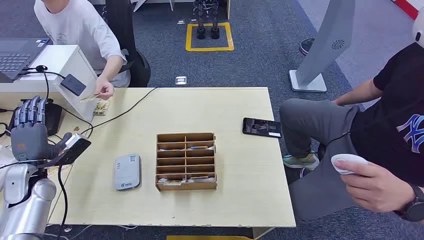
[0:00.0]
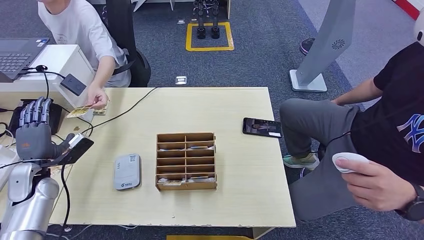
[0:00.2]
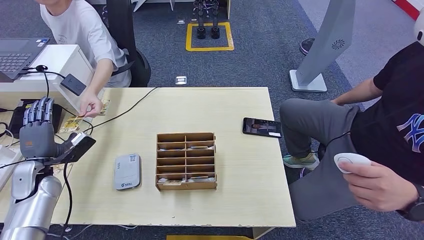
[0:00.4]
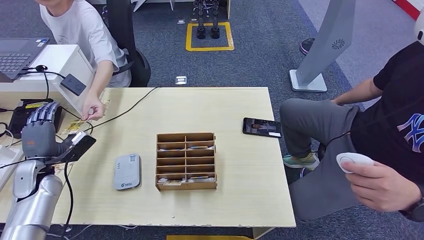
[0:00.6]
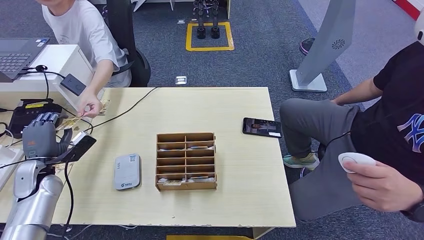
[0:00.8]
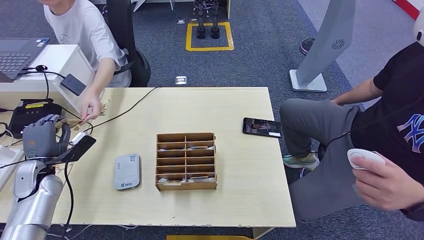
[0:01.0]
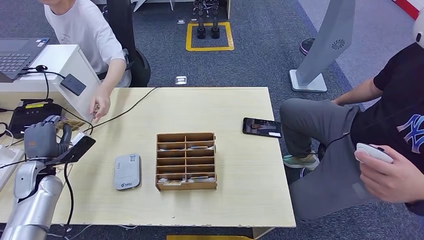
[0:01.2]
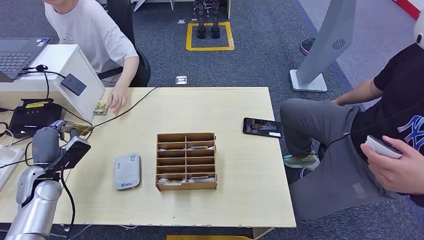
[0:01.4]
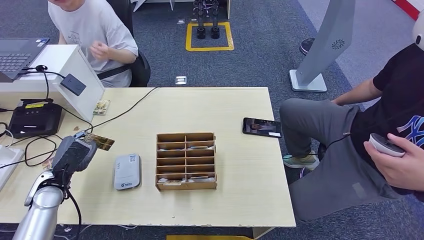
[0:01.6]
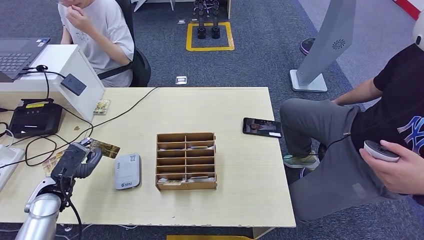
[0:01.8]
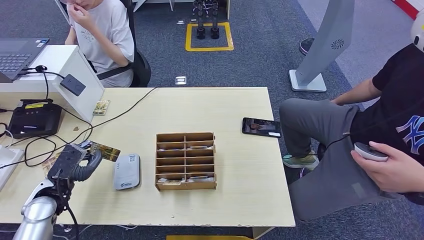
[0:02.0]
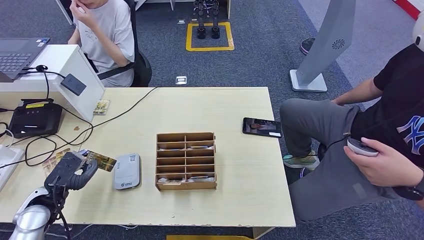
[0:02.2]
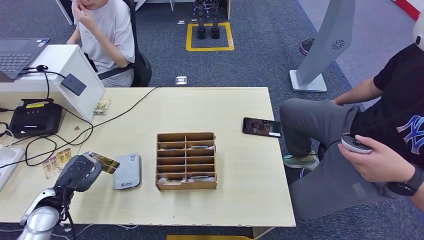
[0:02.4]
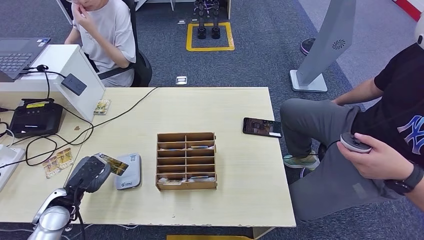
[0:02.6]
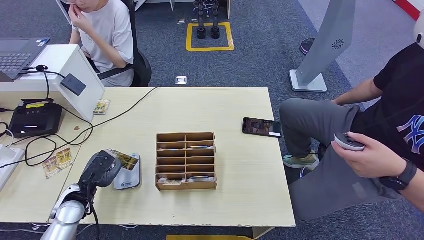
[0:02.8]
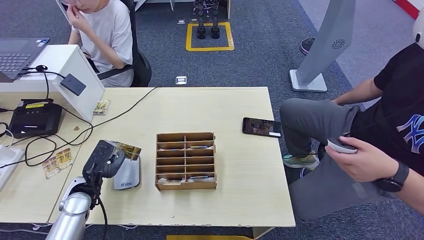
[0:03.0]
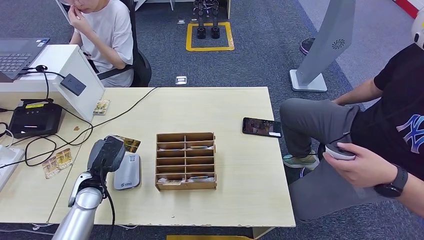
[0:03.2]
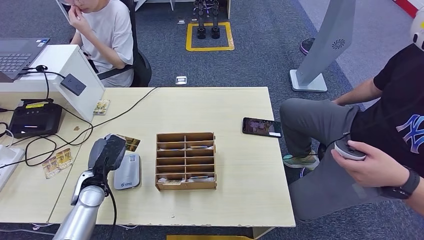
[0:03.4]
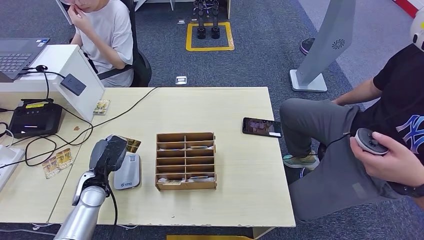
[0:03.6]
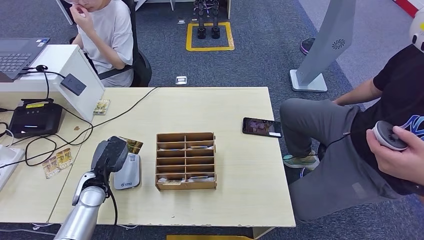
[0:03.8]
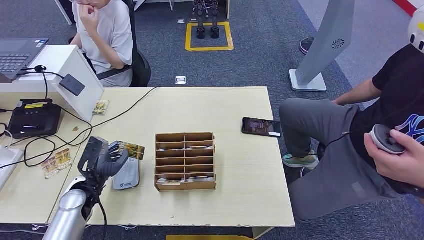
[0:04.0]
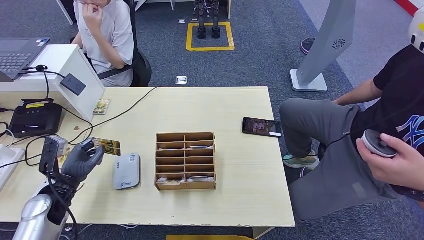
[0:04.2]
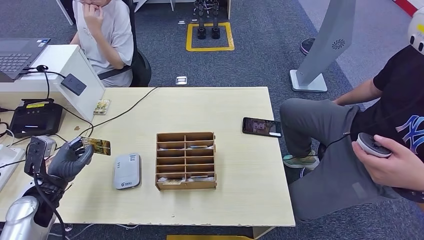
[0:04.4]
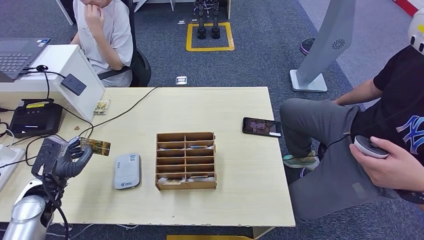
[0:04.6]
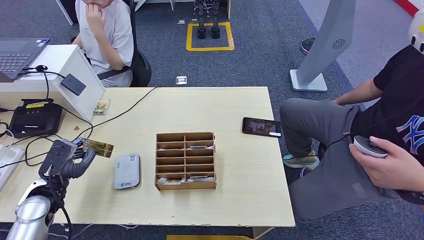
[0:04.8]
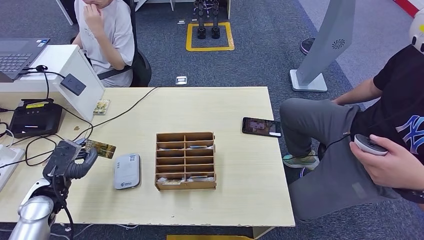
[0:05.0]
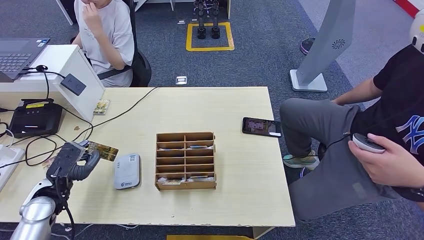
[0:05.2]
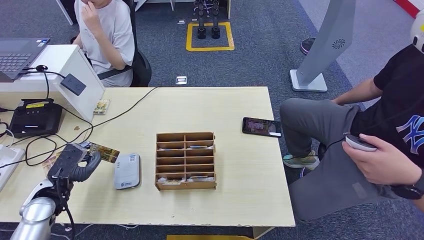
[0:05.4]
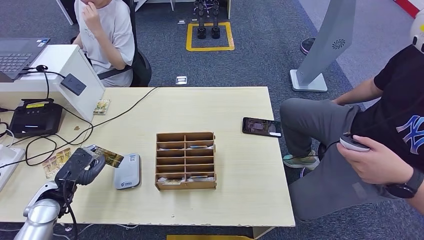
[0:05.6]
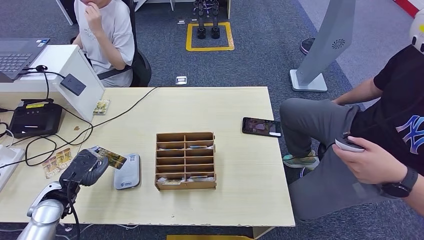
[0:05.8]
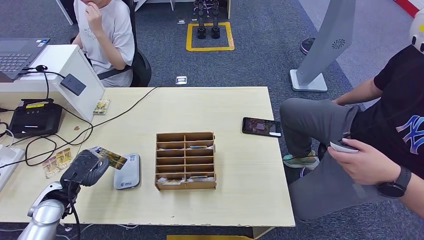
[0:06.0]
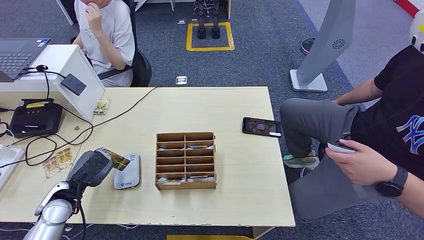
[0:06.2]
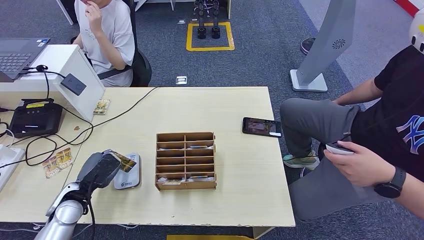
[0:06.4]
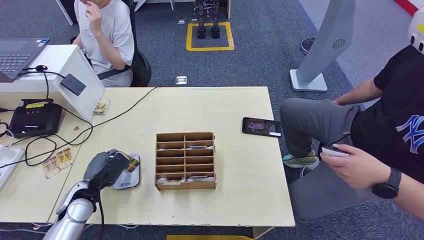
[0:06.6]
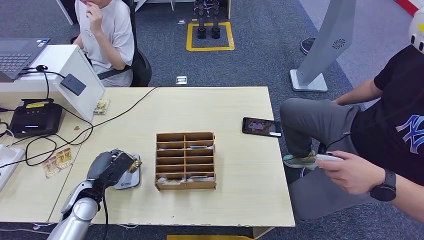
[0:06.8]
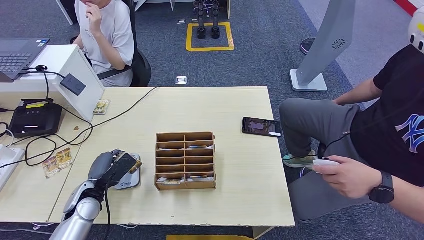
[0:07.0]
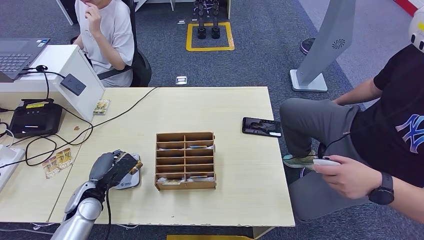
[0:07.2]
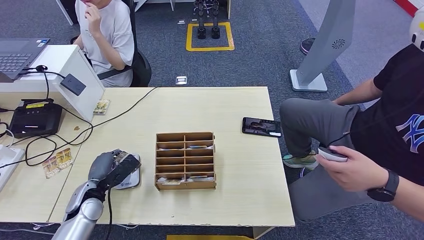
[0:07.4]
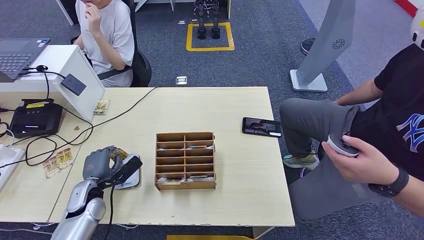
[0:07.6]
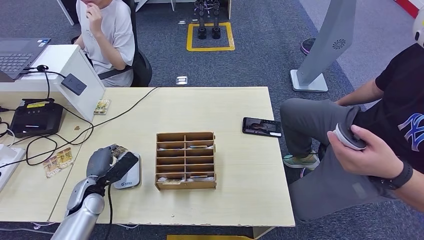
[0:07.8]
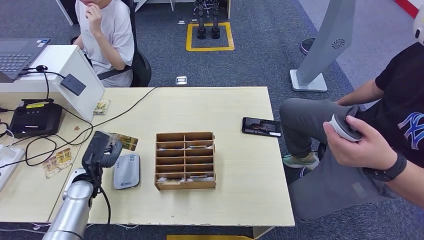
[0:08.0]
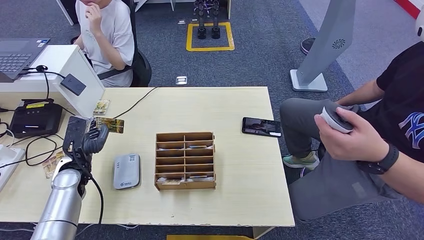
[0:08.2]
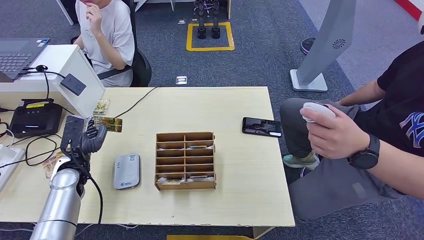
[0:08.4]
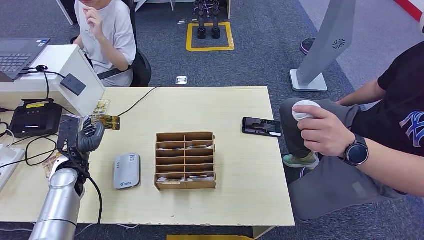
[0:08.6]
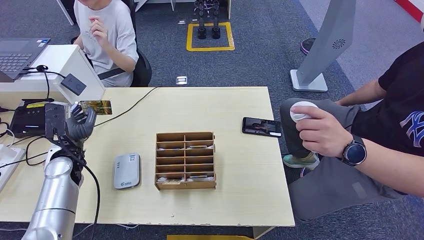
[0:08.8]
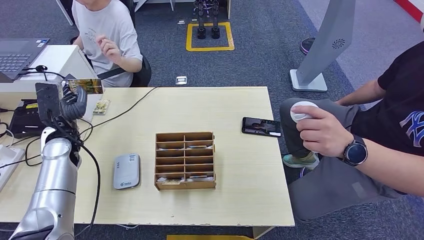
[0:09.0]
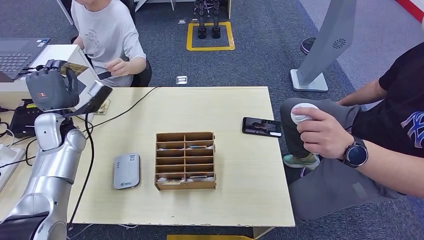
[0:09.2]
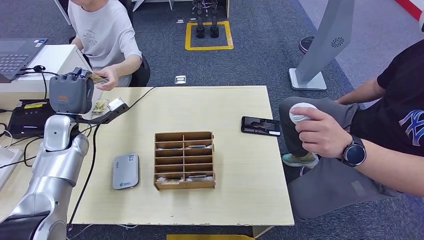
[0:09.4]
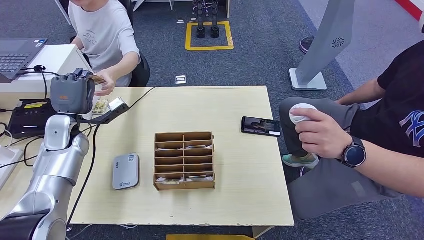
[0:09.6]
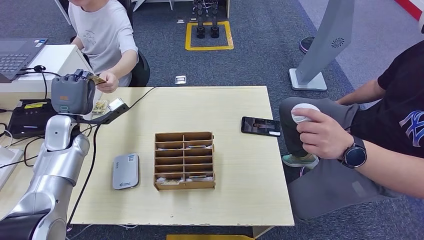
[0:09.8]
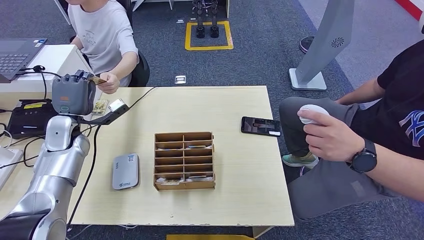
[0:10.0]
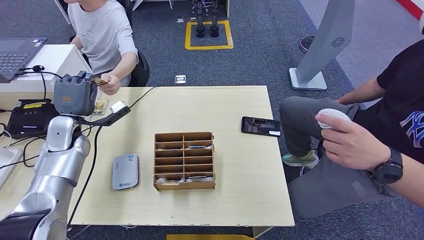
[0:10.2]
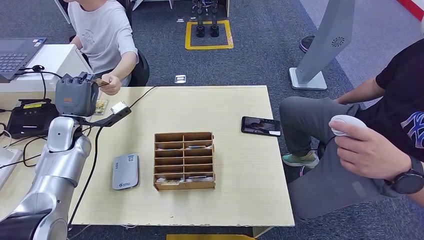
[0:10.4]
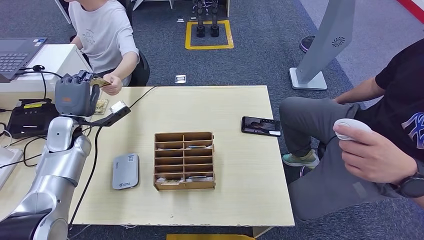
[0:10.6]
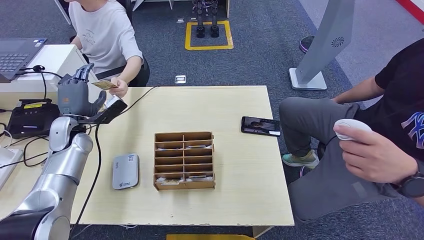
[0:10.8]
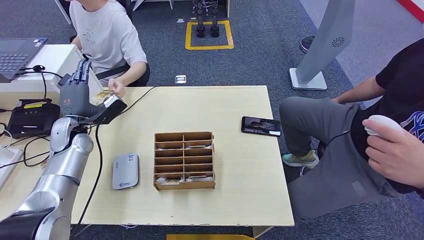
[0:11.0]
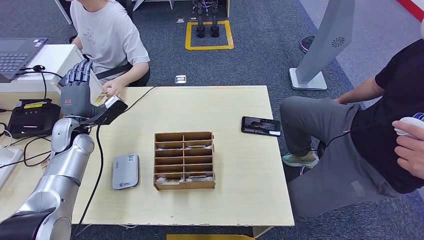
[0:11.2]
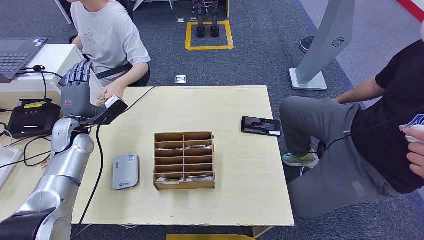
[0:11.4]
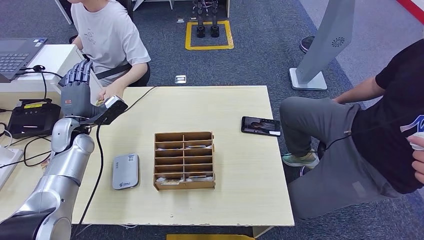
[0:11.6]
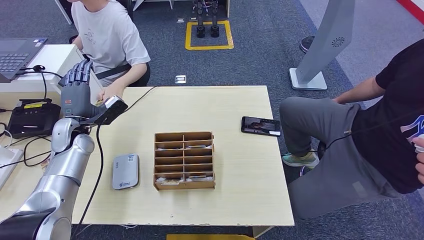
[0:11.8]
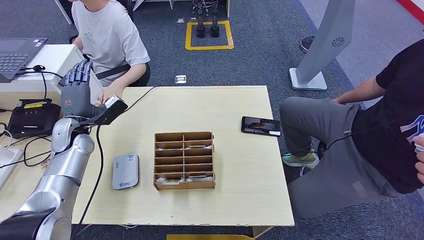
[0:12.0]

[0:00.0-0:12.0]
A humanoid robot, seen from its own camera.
Step, 0:00.0 to 0:01.2: Take the ID card from the person's hand.
Step, 0:01.4 to 0:06.2: Place the ID card on the card reader.
Step, 0:06.4 to 0:10.8: Hand the ID card to the person.
0:01.6 to 0:03.0: The left hand heads to the right, covering approximately 10 cm.
0:03.0 to 0:04.4: The left hand travels to the left by some 10 cm.
0:06.0 to 0:07.6: The left hand heads to the right, covering about 5 cm.
0:07.6 to 0:09.0: The left hand heads upward and forward, covering some 15 cm.

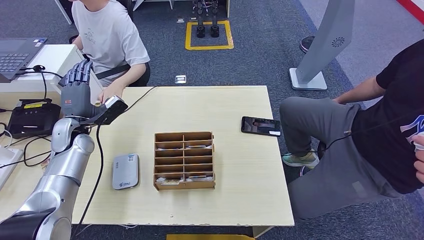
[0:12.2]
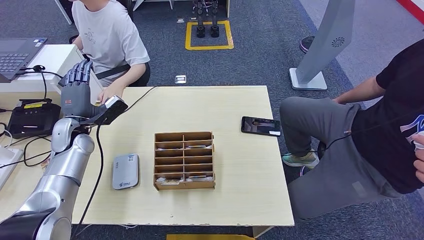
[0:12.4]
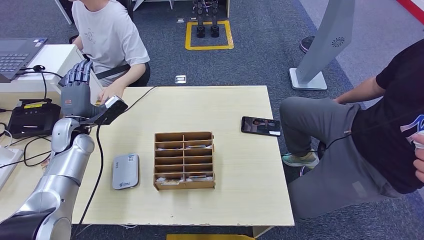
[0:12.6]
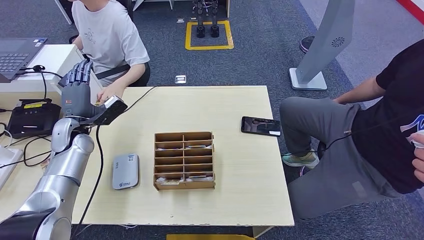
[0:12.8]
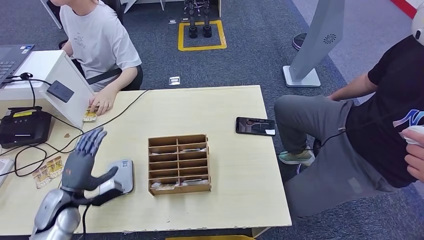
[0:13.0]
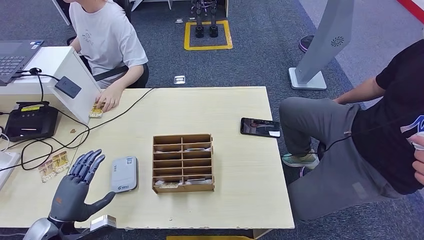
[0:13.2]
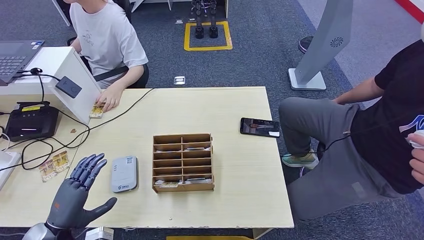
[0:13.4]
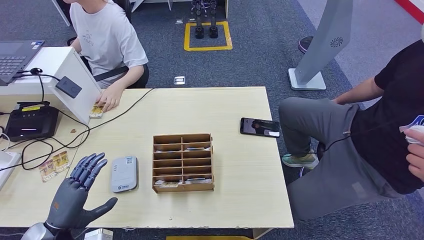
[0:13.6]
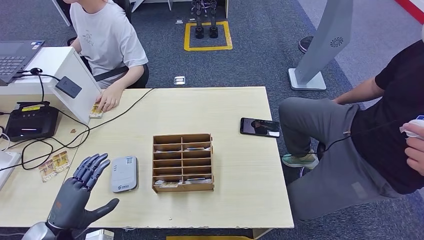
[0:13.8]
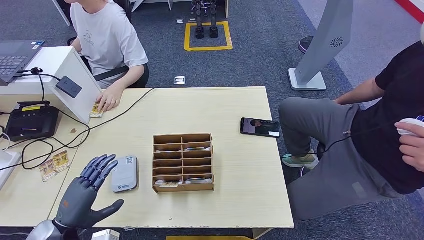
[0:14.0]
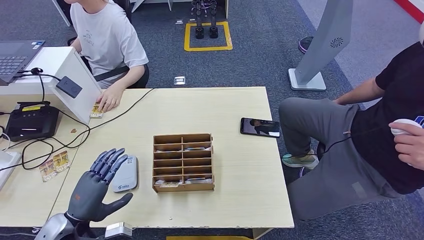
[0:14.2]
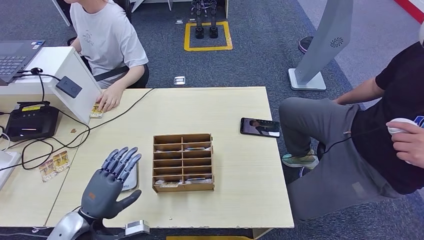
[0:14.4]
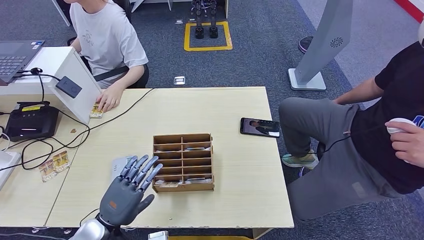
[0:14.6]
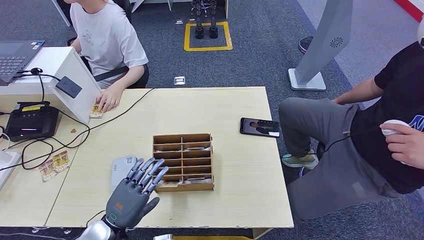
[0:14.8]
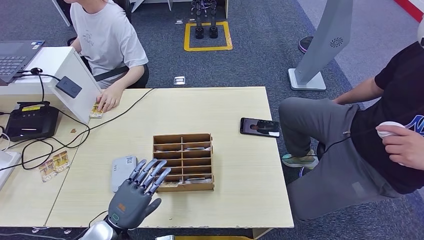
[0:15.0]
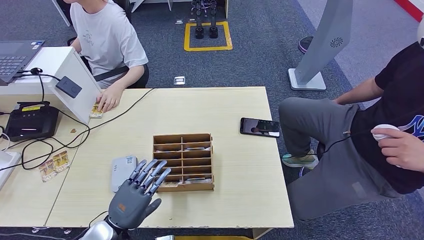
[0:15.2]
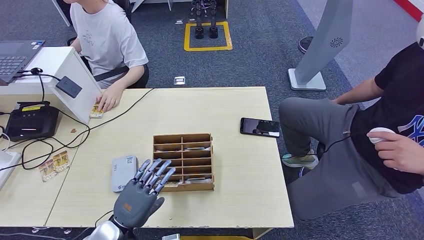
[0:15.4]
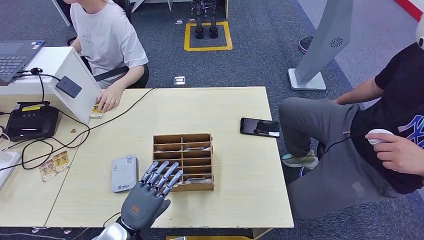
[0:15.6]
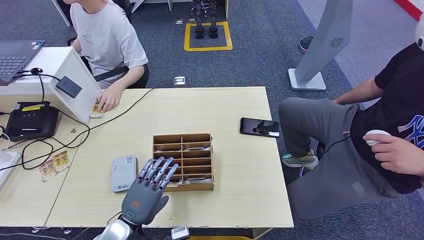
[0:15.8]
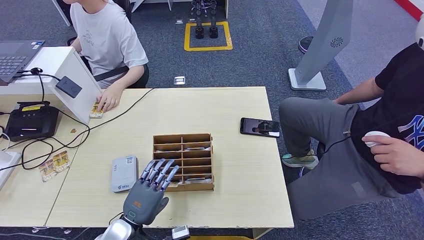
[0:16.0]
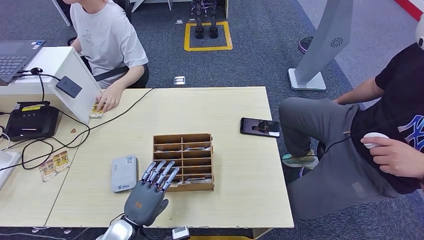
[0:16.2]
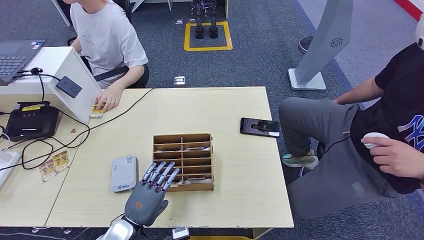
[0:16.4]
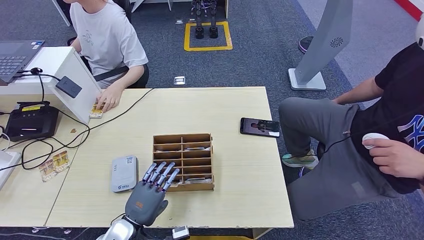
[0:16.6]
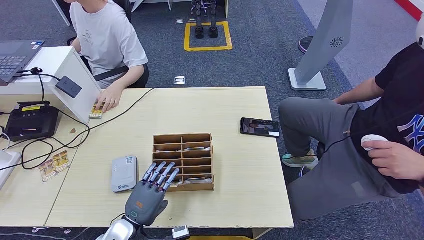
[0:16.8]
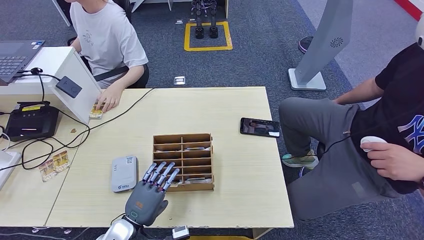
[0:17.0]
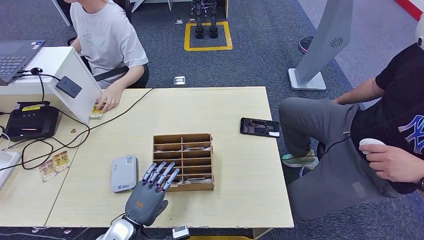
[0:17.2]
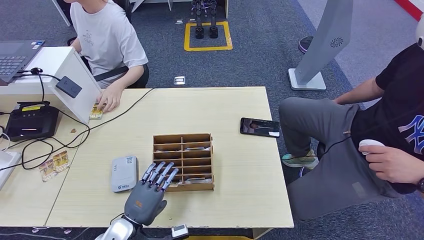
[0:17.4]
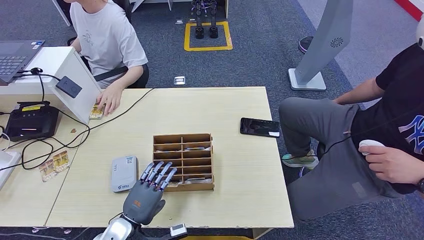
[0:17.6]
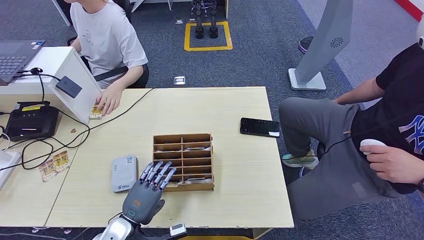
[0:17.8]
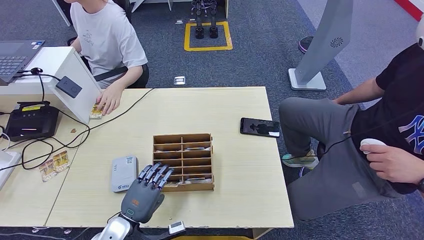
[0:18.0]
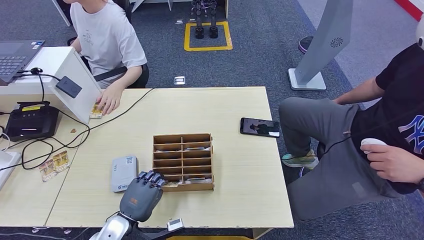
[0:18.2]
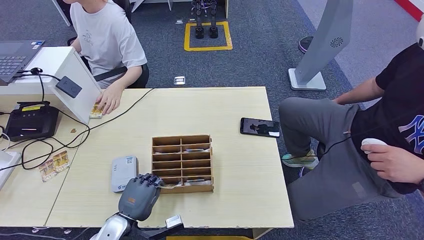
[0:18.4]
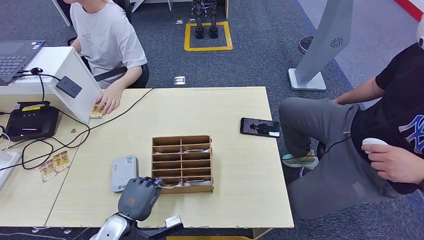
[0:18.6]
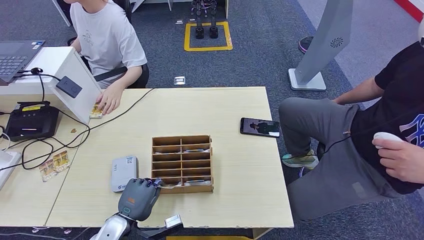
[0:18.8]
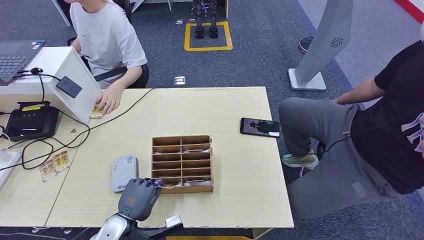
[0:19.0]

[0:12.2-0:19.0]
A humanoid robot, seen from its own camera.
0:13.6 to 0:15.0: The left hand travels to the right by about 10 cm.
0:15.0 to 0:16.2: The hands move only a little.
0:16.2 to 0:17.6: Both hands stay put.
0:17.6 to 0:19.0: There are only small adjustments of the hands.
